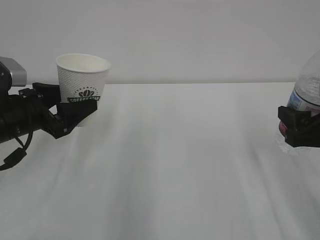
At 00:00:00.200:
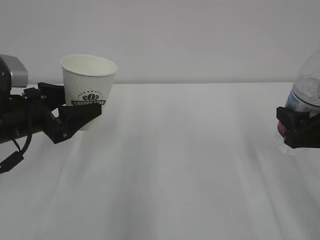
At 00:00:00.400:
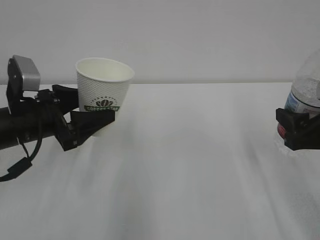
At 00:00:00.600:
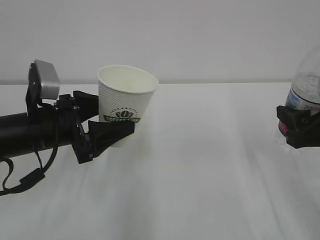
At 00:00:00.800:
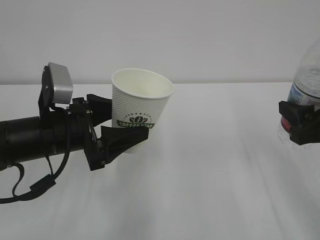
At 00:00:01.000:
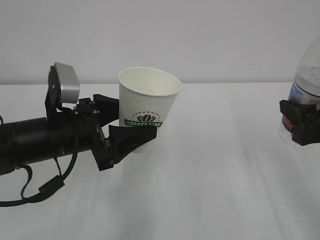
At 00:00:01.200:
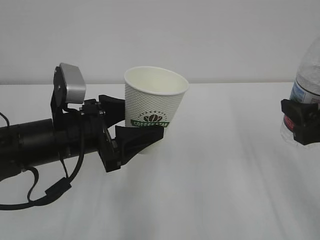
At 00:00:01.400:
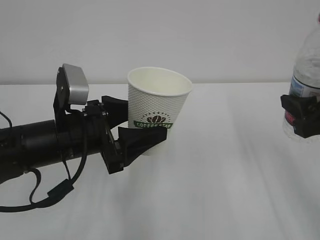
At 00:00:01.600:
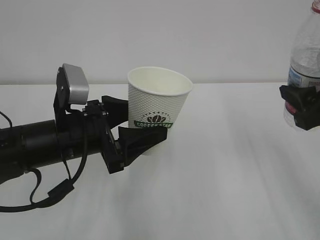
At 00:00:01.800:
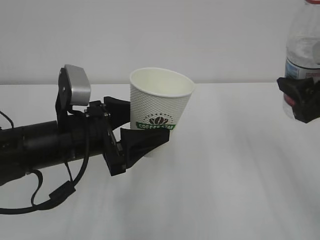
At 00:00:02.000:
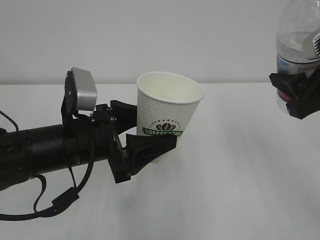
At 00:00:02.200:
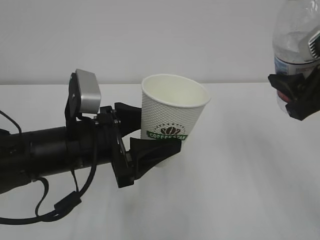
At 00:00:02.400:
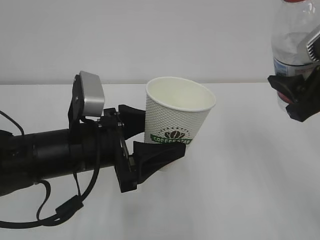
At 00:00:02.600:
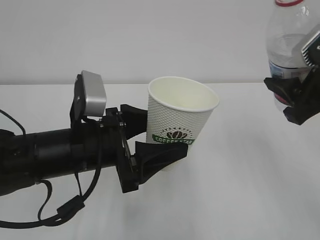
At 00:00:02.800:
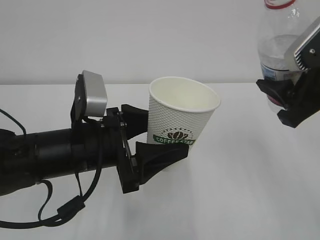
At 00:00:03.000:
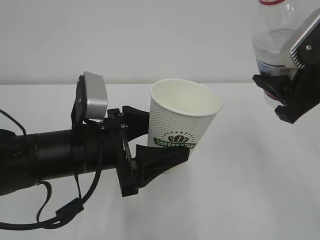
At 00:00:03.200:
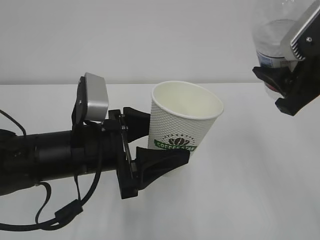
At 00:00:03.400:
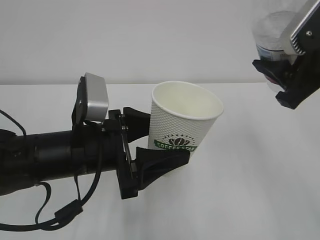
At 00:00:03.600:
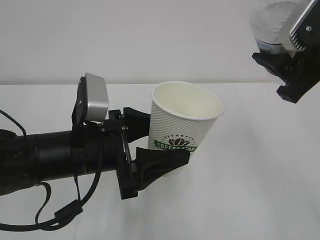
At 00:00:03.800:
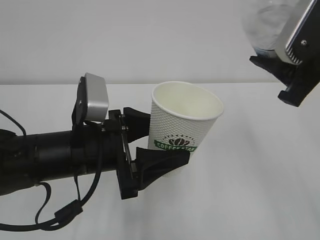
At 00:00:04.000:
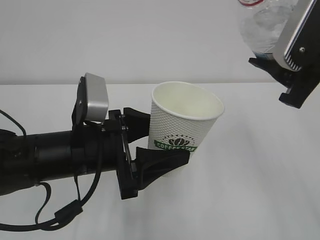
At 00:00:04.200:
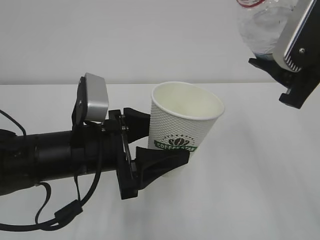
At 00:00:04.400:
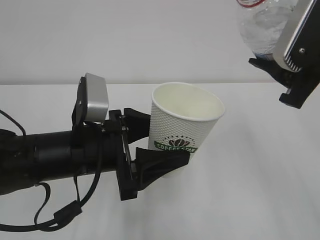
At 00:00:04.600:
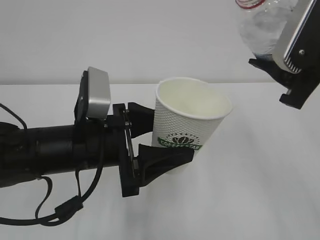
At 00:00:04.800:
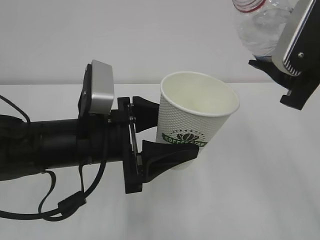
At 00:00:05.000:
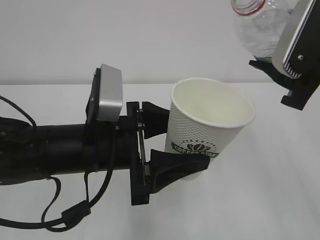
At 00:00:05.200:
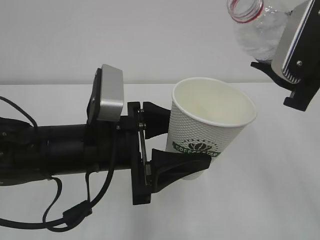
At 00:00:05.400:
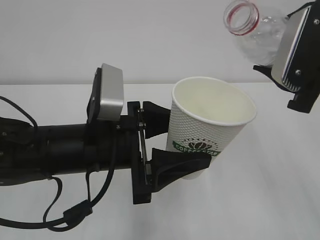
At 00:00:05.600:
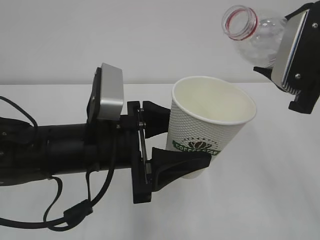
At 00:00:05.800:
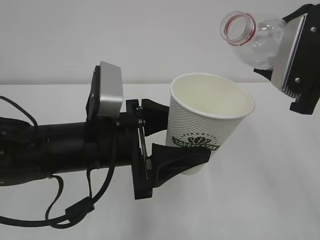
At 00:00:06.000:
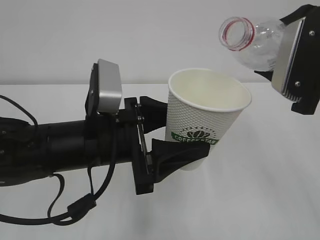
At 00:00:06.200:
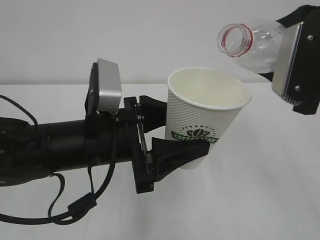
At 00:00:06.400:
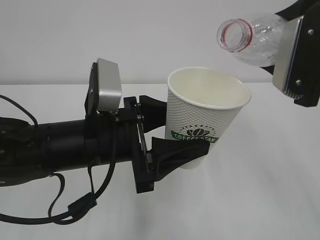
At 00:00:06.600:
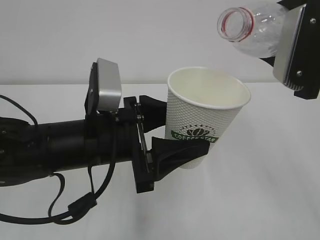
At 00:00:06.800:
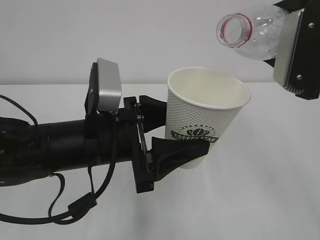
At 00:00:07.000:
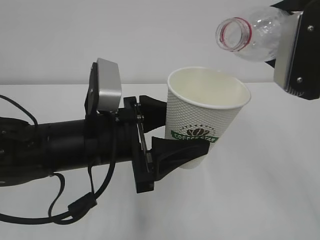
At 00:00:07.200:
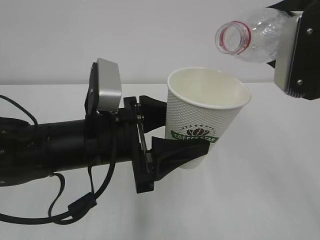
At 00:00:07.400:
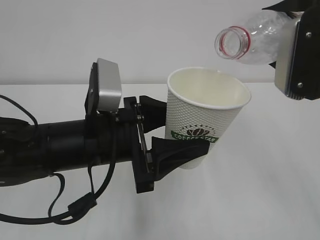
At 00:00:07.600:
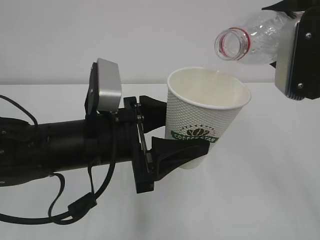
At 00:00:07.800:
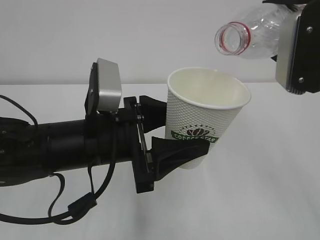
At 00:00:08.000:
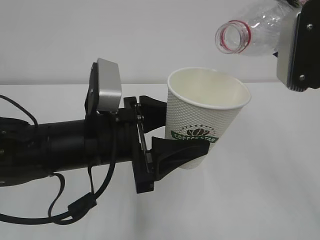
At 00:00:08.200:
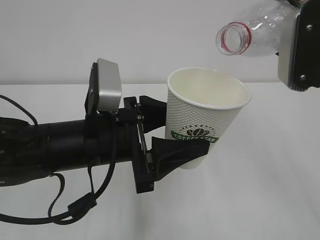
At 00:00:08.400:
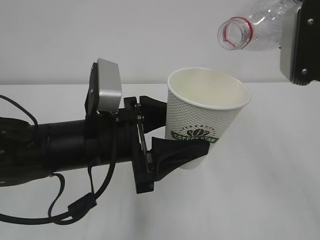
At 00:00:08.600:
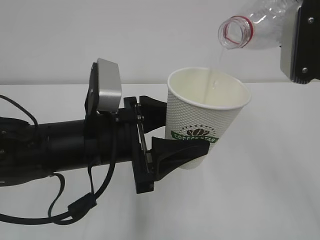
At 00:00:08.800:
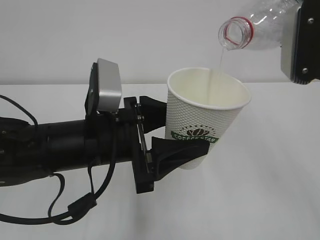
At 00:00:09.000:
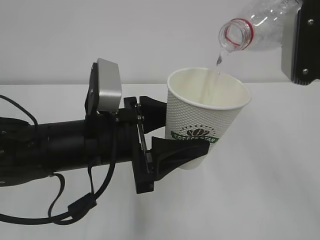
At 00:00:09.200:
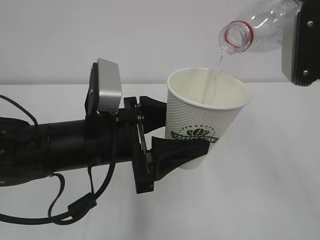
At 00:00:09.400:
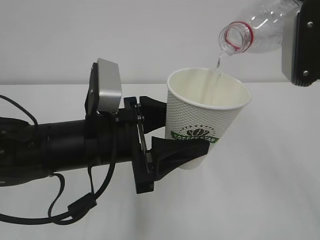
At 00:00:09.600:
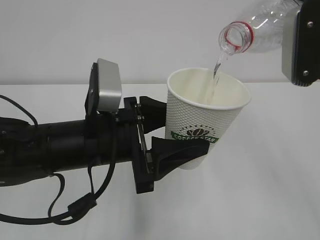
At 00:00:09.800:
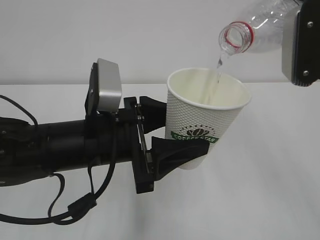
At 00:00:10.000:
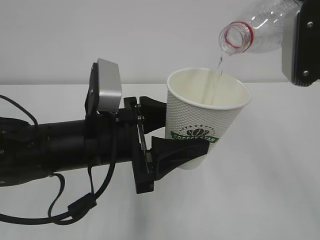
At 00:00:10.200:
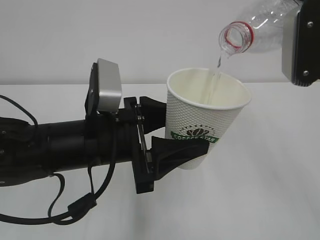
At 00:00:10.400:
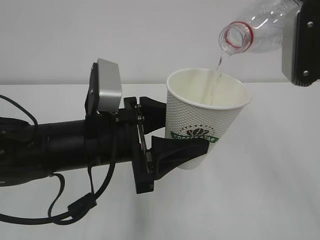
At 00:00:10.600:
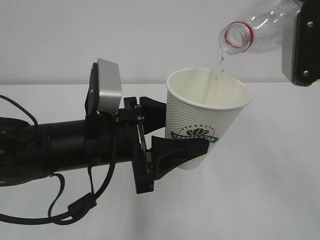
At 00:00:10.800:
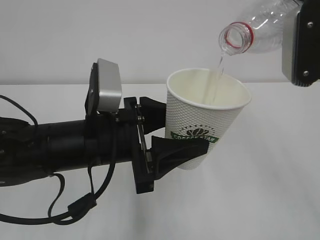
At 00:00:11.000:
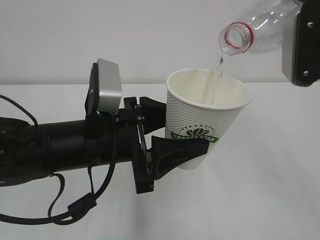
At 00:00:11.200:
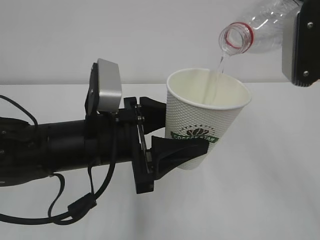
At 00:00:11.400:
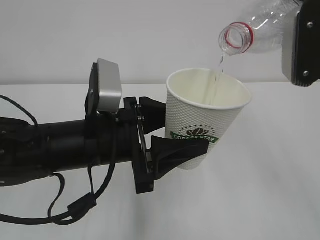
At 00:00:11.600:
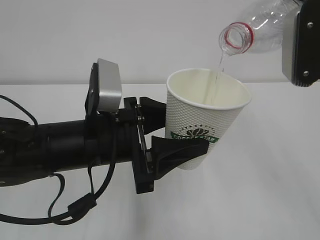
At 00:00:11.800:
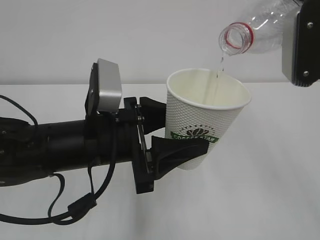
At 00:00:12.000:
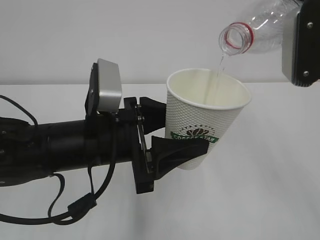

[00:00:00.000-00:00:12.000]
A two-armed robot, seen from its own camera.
00:00:00.000 to 00:00:01.600: The right gripper heads upward, covering roughly 5 cm; the left gripper is displaced to the right and backward by approximately 10 cm.
00:00:01.600 to 00:00:03.000: The right gripper moves some 5 cm.
00:00:06.000 to 00:00:07.600: The grippers move only a little.
00:00:07.600 to 00:00:09.000: The grippers move only a little.
00:00:09.000 to 00:00:12.000: Both grippers stay put.

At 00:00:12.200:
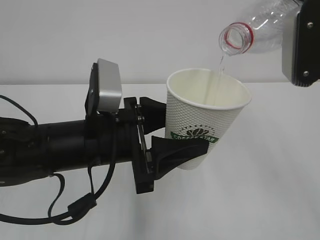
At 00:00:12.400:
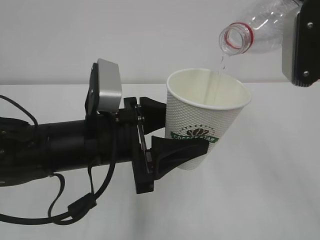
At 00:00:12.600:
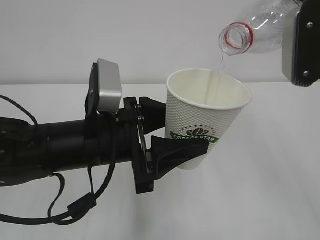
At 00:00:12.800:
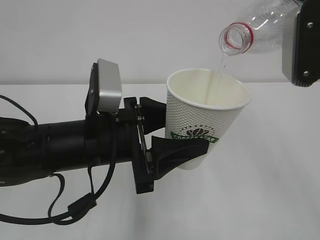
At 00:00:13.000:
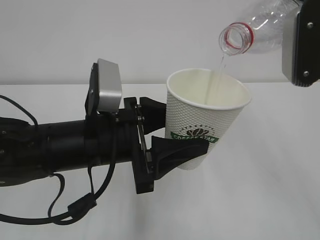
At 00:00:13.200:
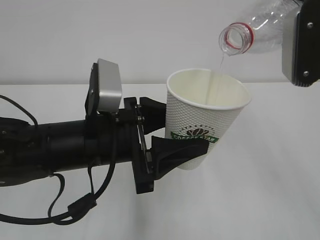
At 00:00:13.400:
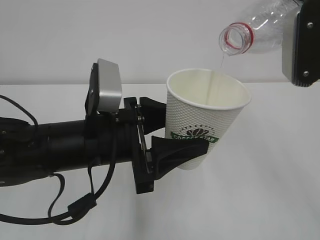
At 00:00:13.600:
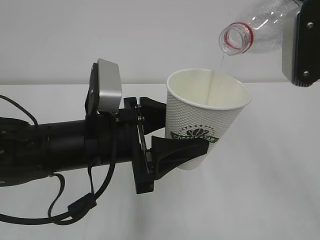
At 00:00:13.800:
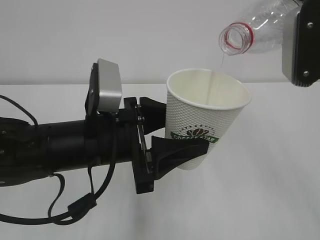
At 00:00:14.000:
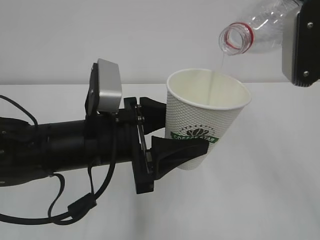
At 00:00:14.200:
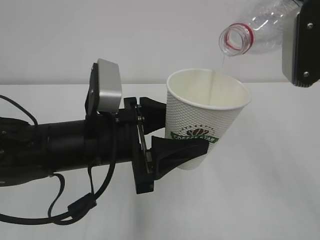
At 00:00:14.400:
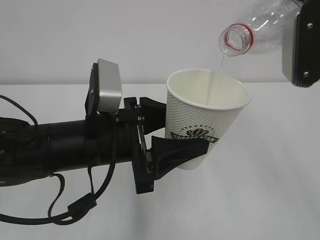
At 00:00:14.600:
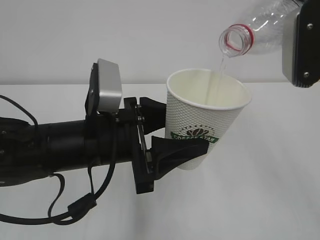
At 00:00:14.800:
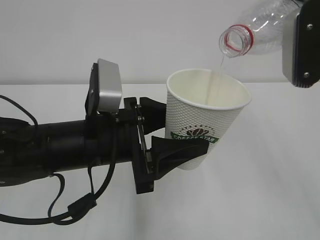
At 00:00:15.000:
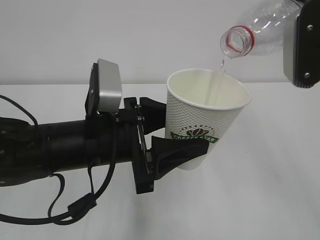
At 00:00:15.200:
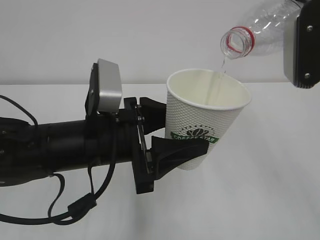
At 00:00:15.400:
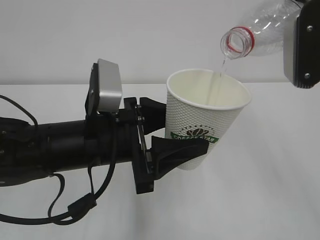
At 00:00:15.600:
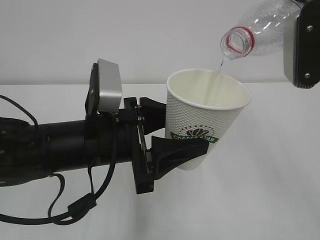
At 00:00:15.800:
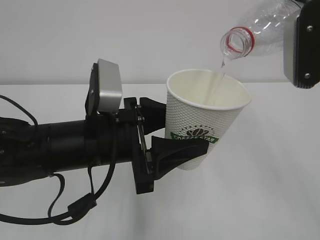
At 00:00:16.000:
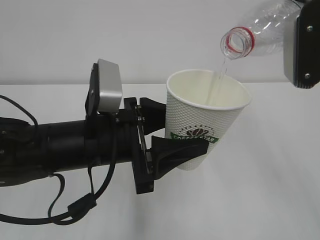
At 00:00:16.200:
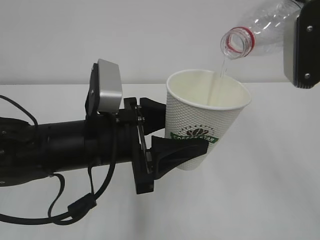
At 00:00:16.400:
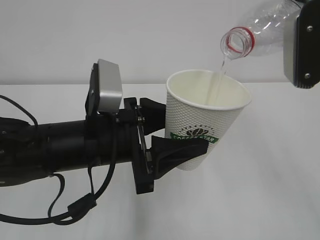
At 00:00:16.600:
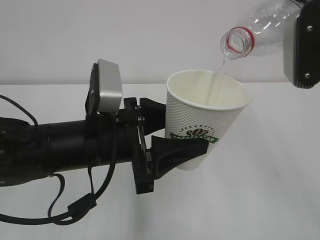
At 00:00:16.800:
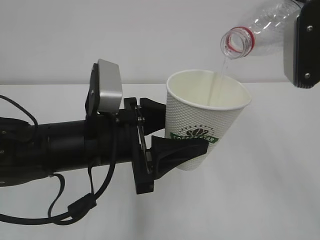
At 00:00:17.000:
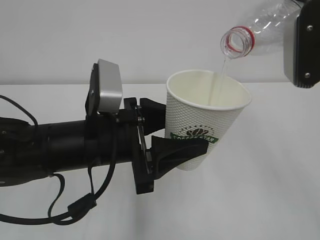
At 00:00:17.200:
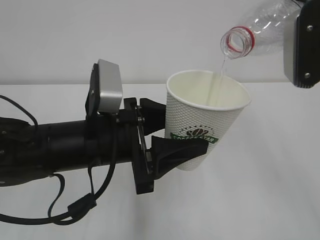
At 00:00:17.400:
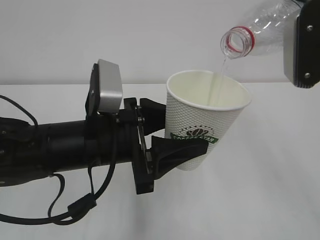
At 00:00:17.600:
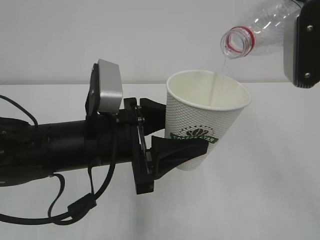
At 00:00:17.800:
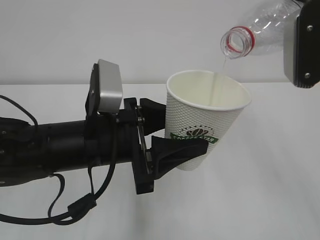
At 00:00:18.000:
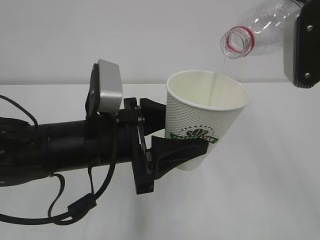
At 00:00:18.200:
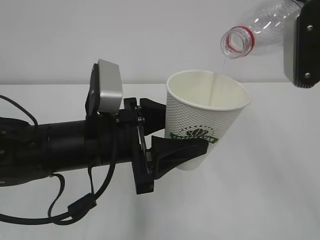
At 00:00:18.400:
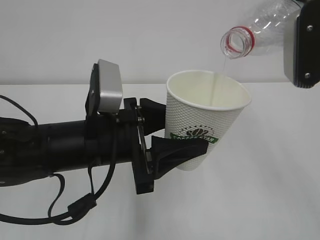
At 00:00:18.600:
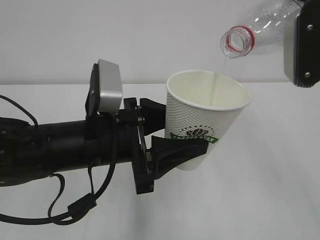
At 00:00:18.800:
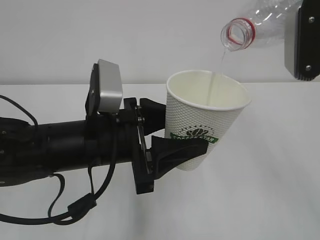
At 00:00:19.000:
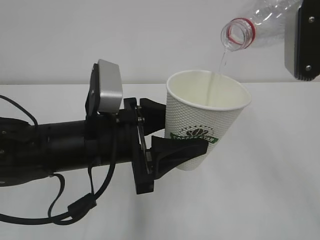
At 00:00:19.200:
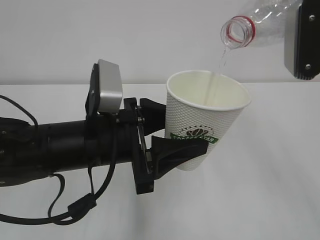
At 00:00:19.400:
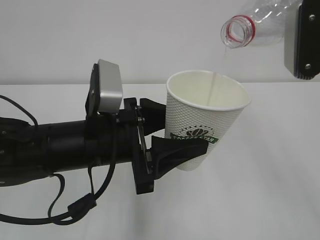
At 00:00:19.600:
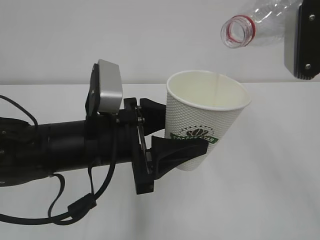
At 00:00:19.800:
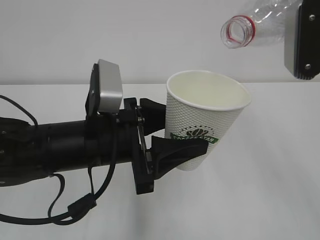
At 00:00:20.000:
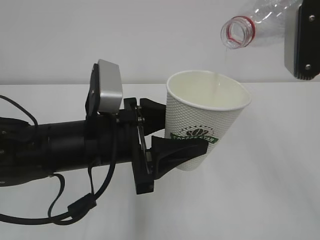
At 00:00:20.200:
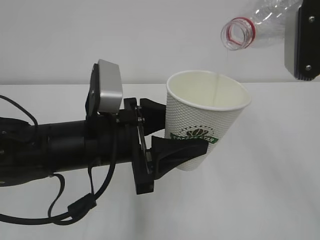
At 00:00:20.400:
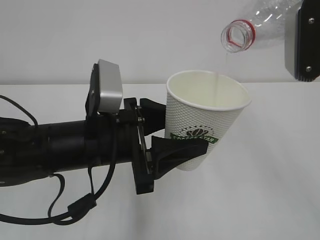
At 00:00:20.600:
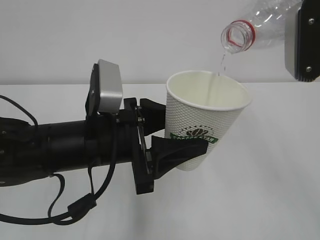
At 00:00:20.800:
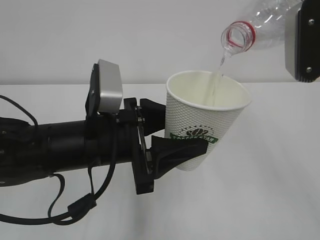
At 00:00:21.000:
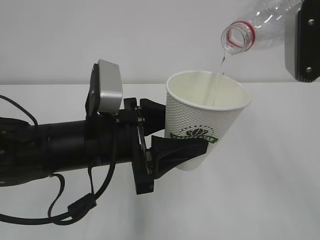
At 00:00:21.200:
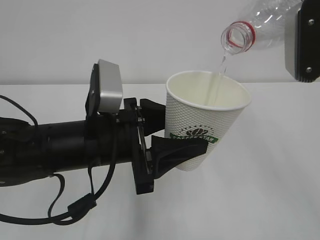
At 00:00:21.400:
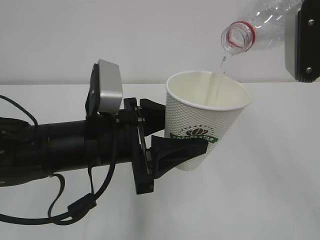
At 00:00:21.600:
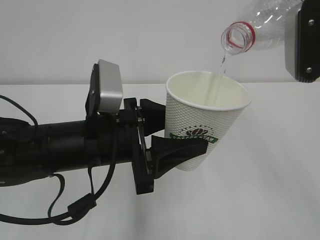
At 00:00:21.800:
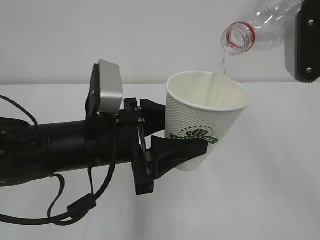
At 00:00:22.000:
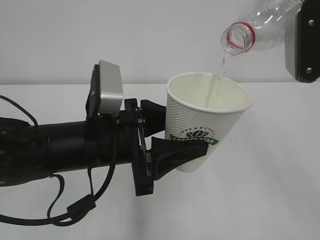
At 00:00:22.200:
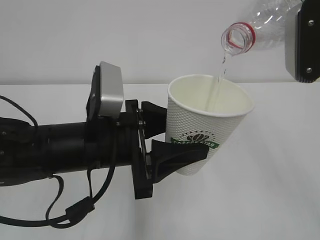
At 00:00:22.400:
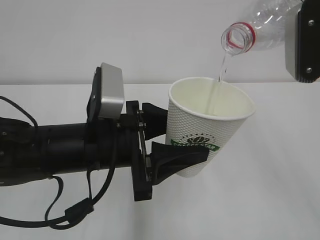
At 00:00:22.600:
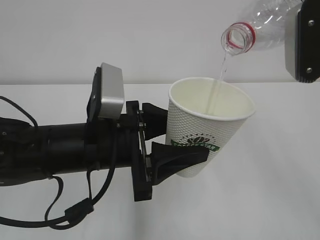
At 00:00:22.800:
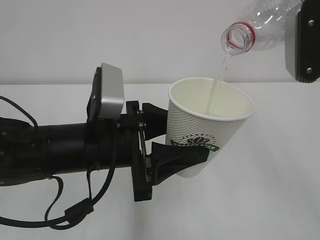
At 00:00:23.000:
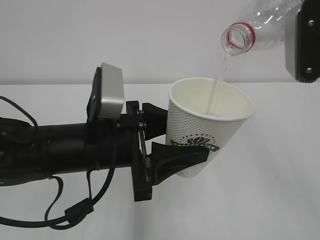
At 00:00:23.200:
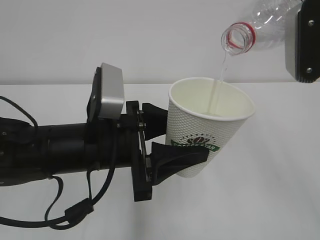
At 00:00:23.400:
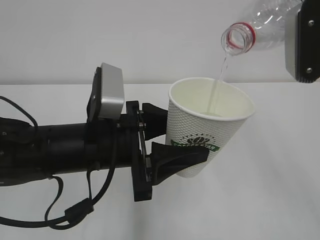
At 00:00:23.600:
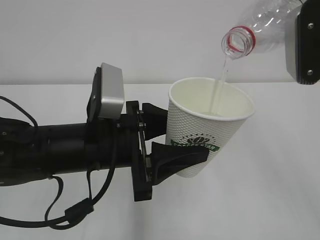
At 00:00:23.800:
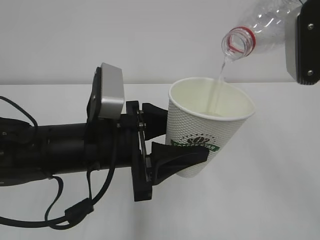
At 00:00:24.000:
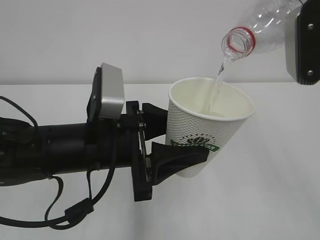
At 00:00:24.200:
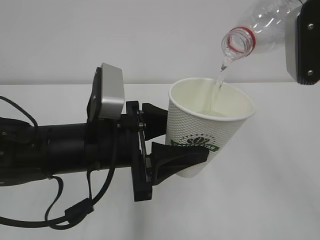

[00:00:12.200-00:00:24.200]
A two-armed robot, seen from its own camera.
00:00:12.200 to 00:00:22.600: Both grippers stay put.
00:00:22.600 to 00:00:24.200: Both grippers stay put.
